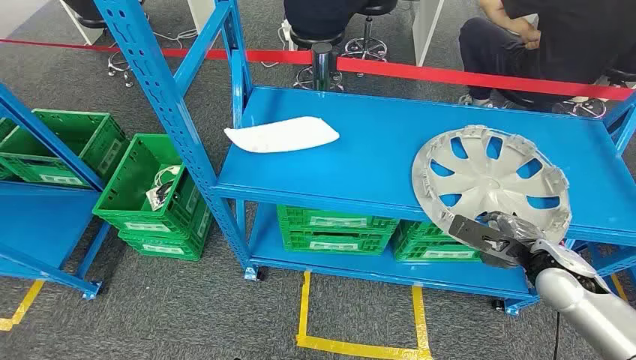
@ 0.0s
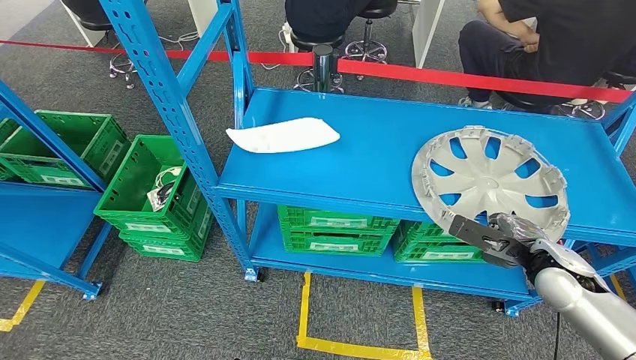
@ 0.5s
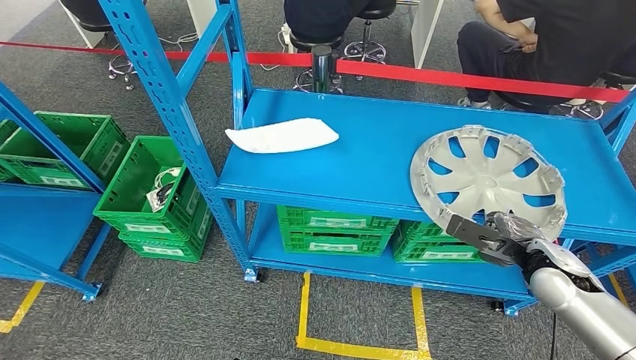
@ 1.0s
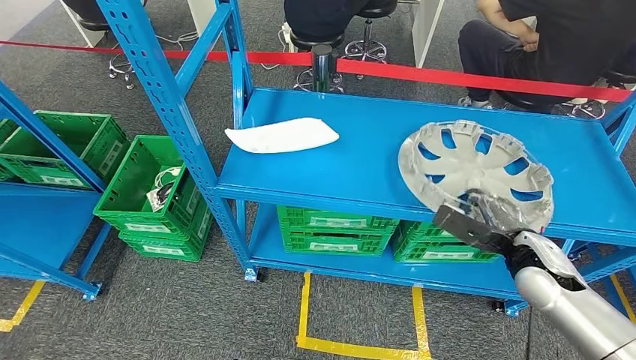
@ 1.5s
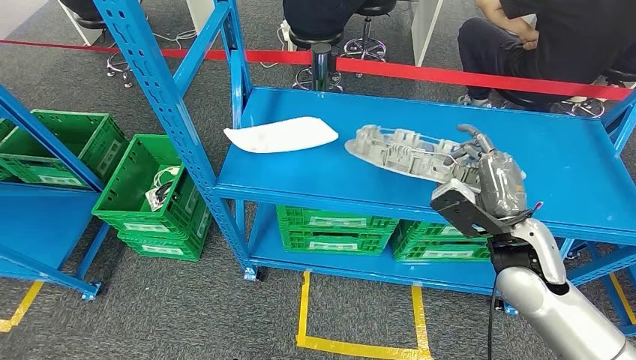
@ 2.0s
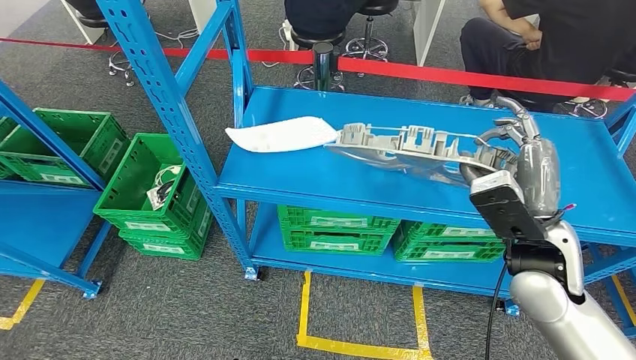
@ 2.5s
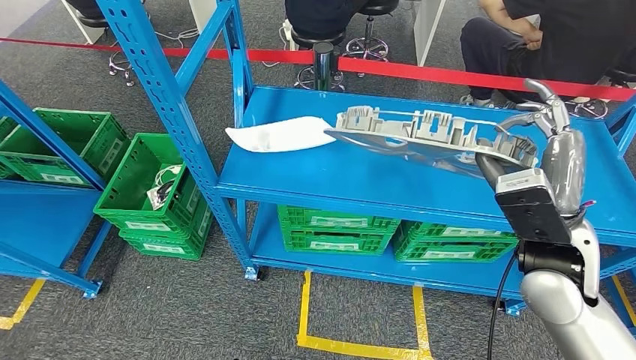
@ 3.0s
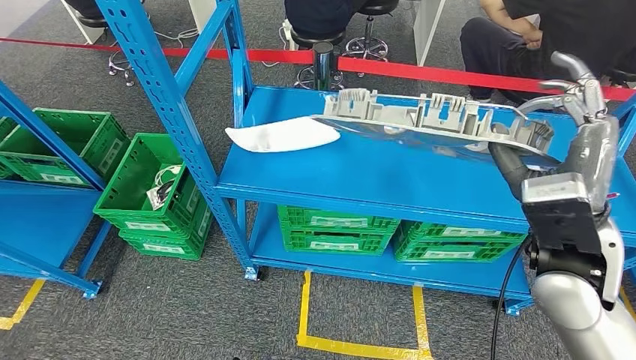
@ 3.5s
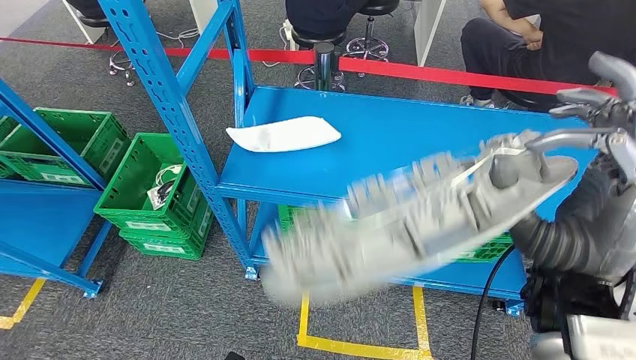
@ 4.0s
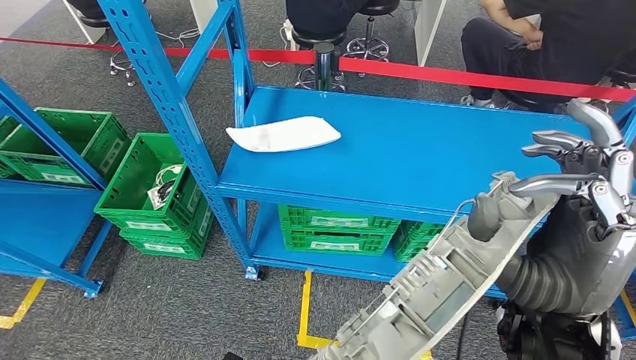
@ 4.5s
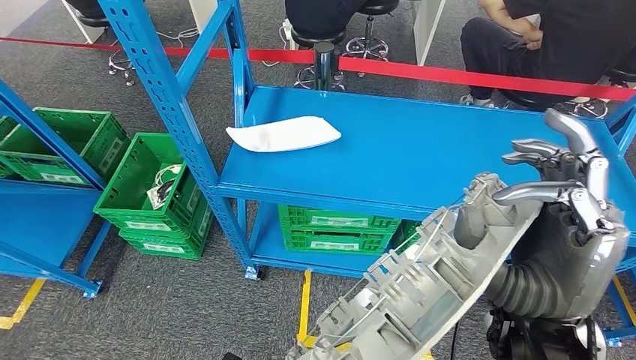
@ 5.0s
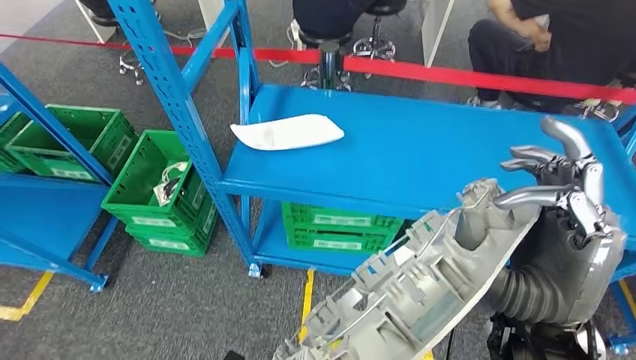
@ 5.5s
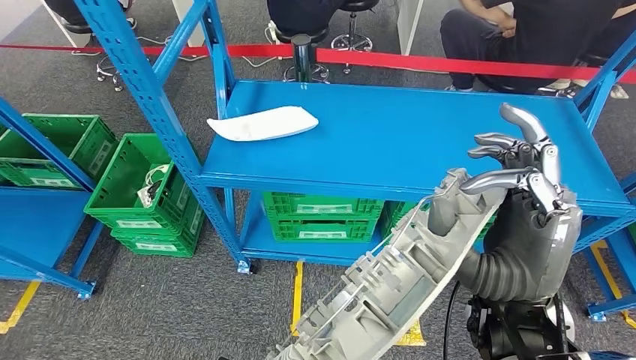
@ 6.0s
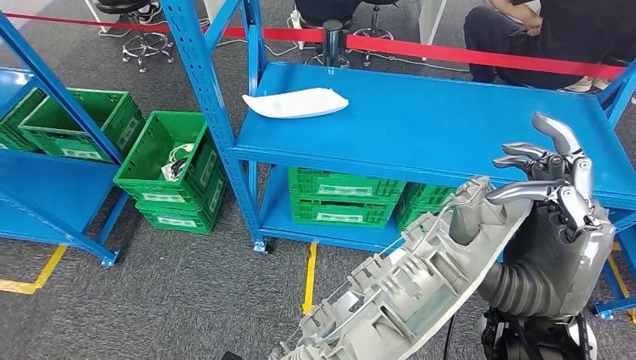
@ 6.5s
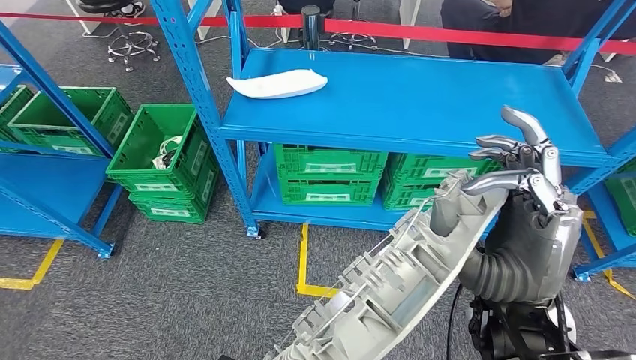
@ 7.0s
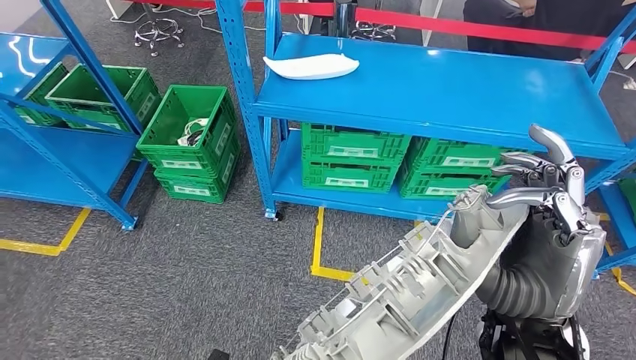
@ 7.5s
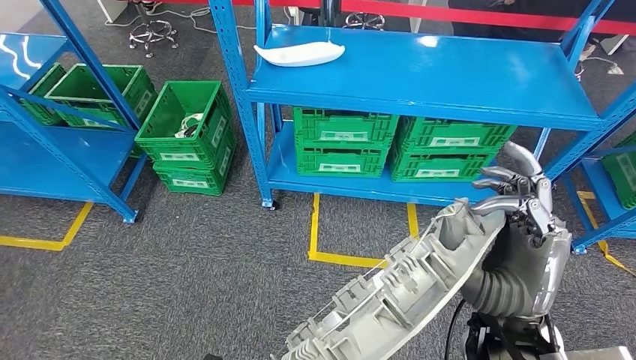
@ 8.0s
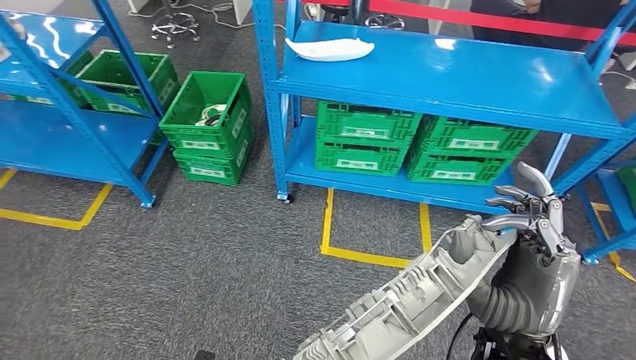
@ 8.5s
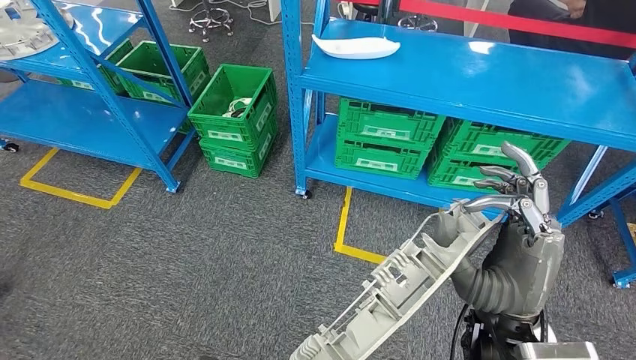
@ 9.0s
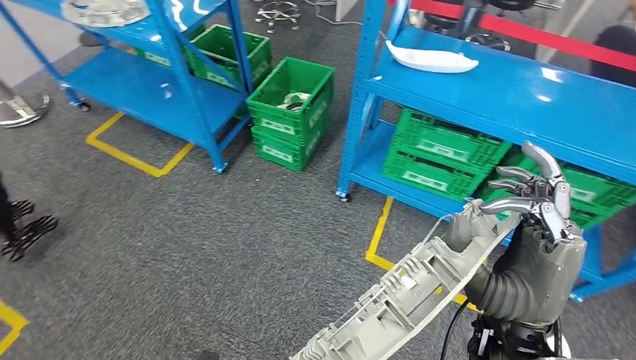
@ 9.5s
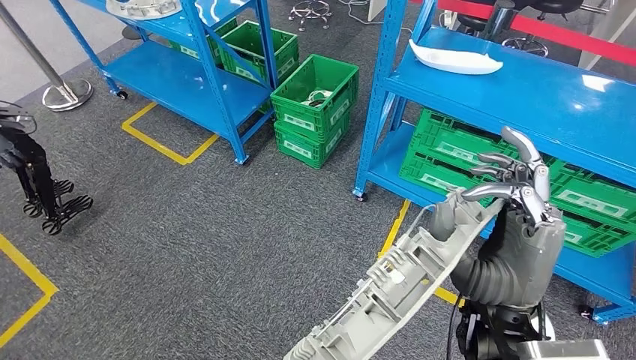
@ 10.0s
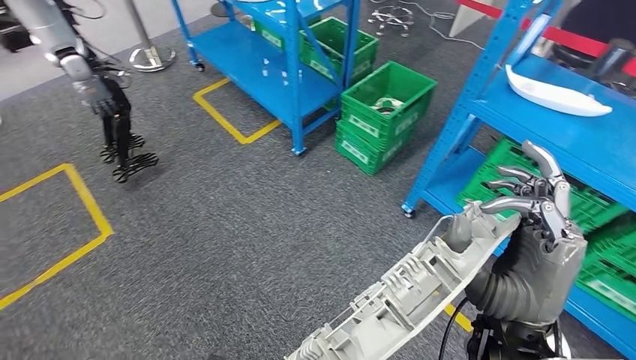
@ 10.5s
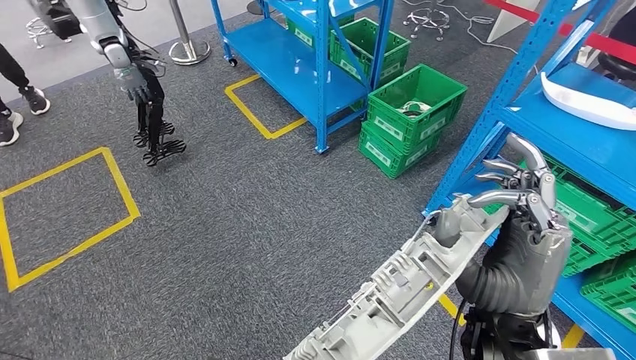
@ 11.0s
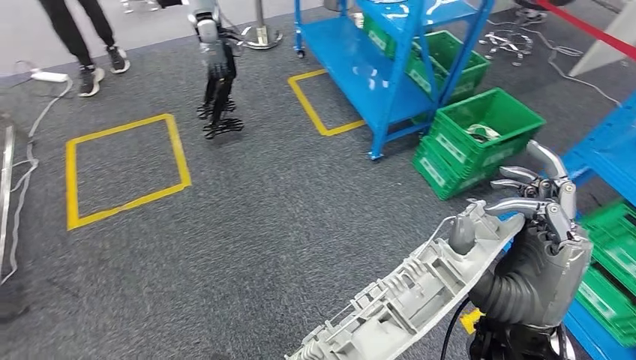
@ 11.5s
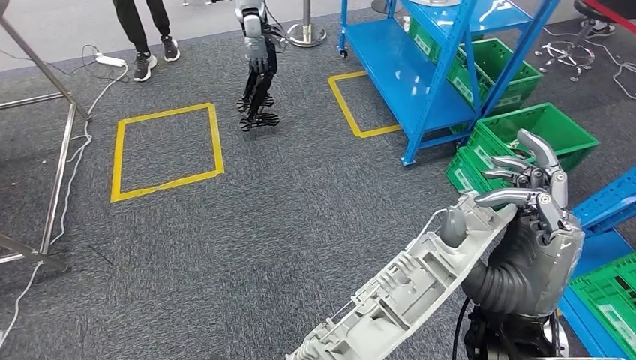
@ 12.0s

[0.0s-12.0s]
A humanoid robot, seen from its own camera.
Step, 0.0s to 5.0s: Pick up the small component from the shelf.

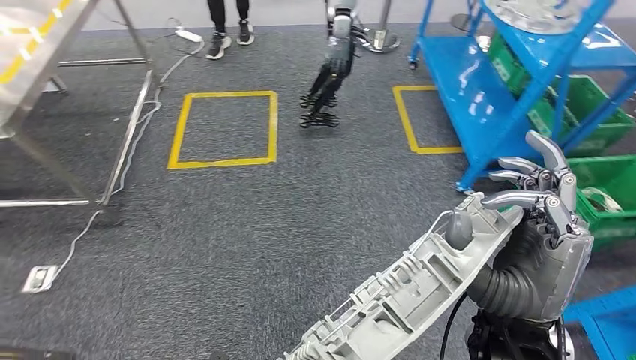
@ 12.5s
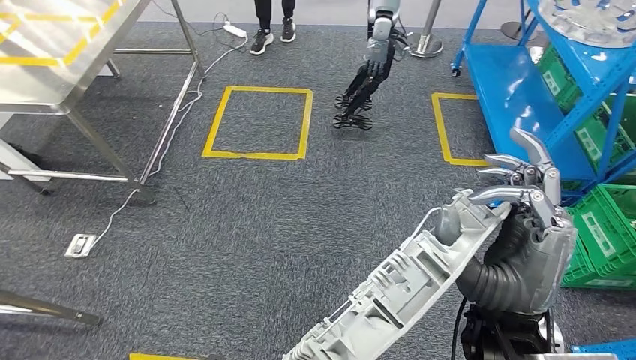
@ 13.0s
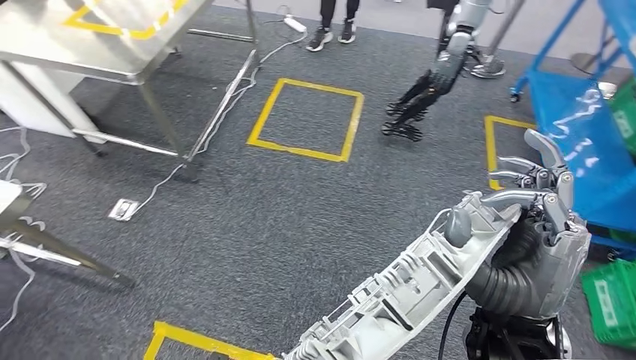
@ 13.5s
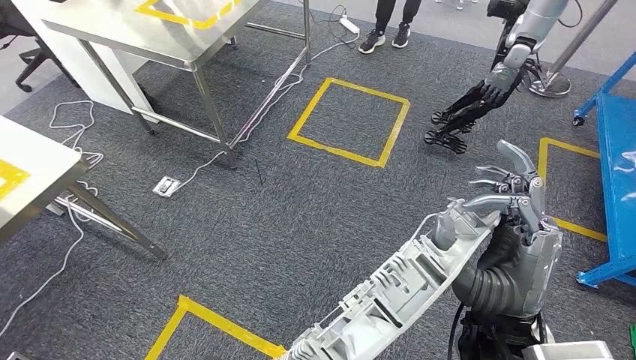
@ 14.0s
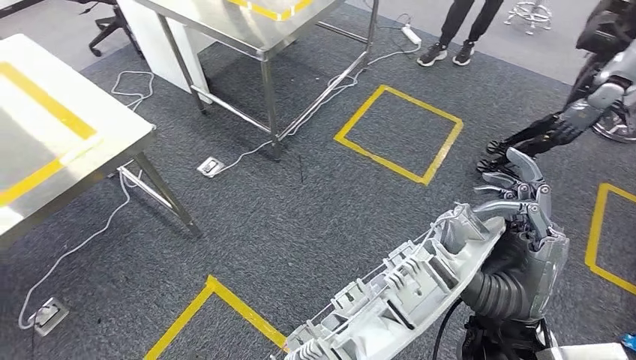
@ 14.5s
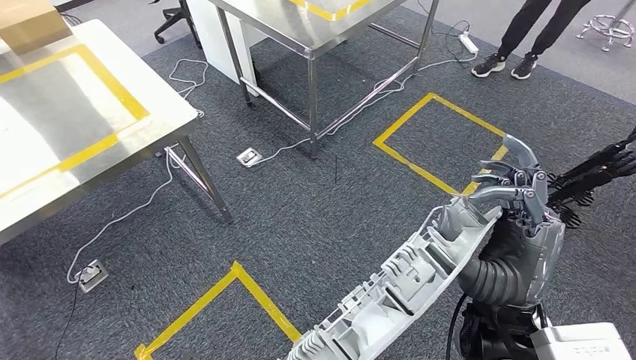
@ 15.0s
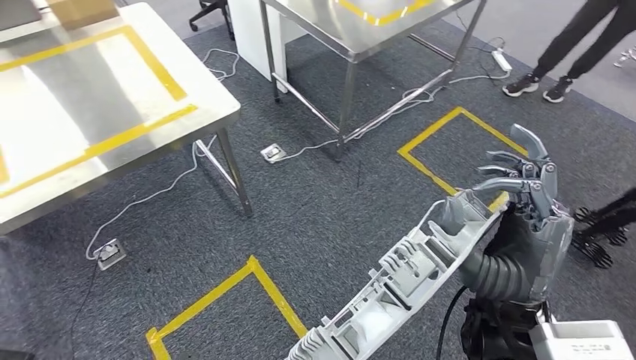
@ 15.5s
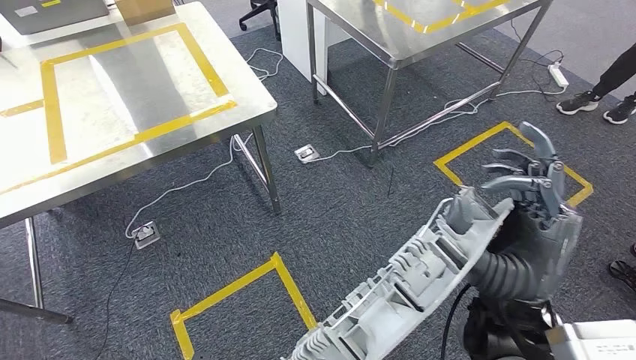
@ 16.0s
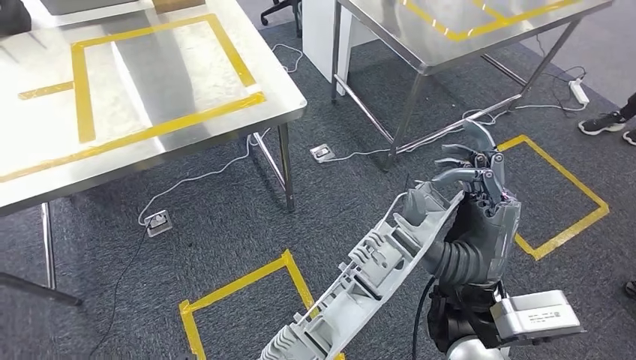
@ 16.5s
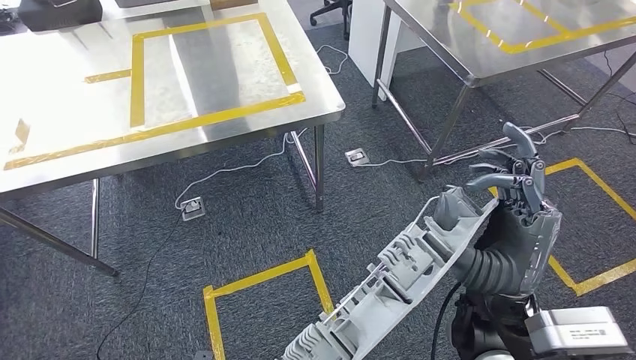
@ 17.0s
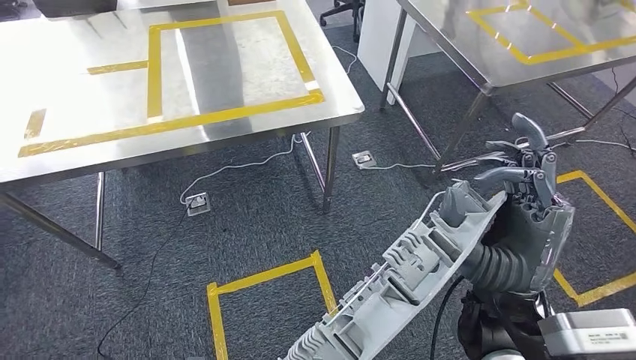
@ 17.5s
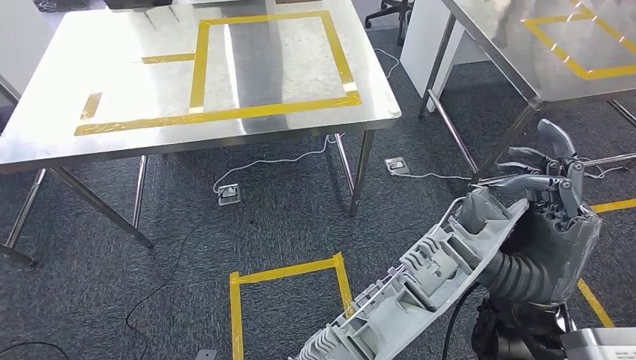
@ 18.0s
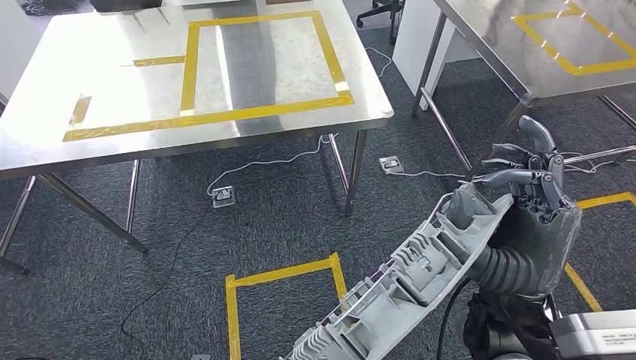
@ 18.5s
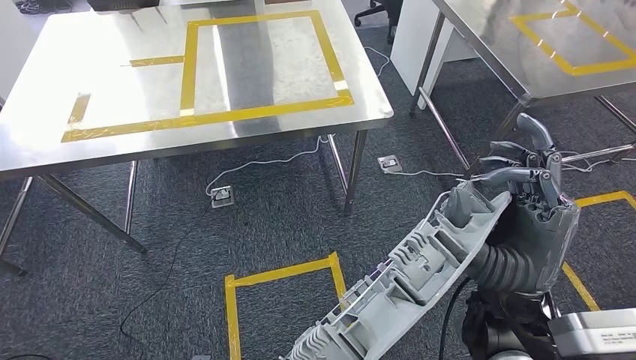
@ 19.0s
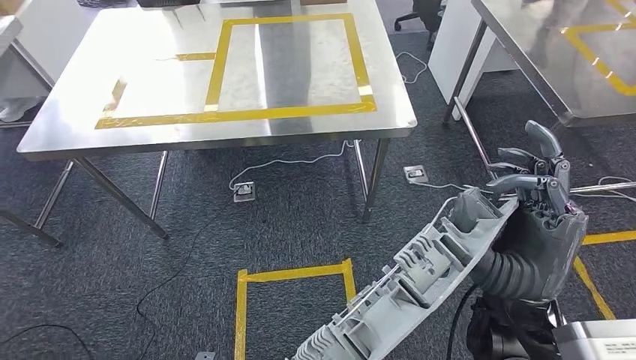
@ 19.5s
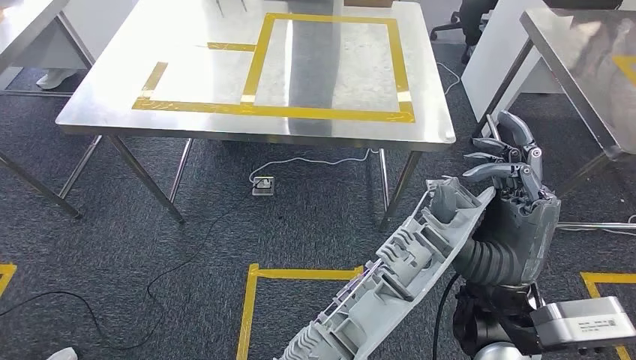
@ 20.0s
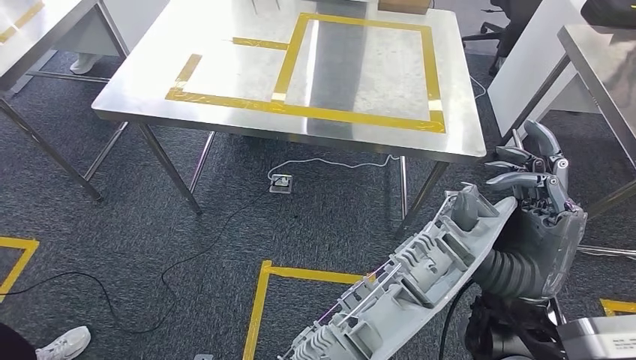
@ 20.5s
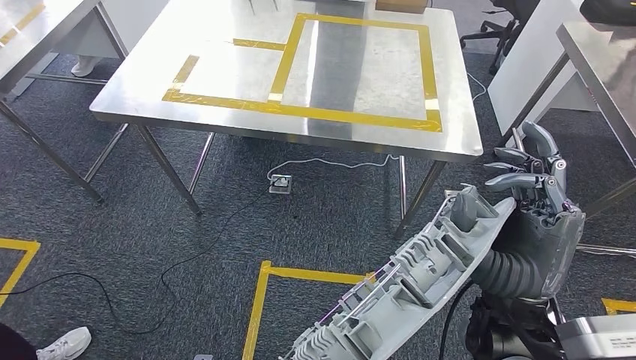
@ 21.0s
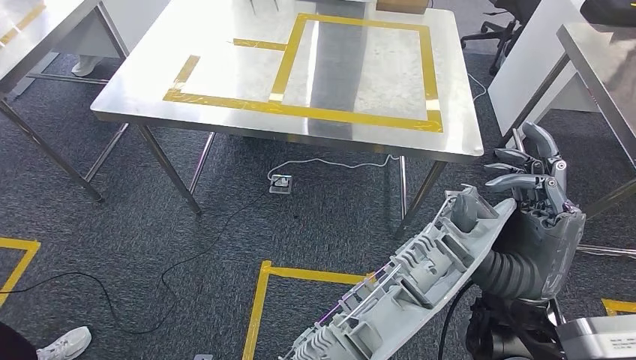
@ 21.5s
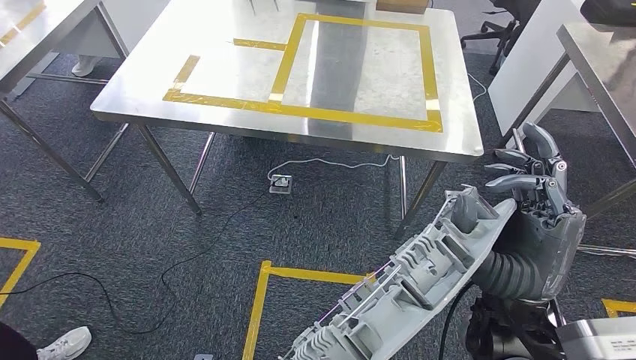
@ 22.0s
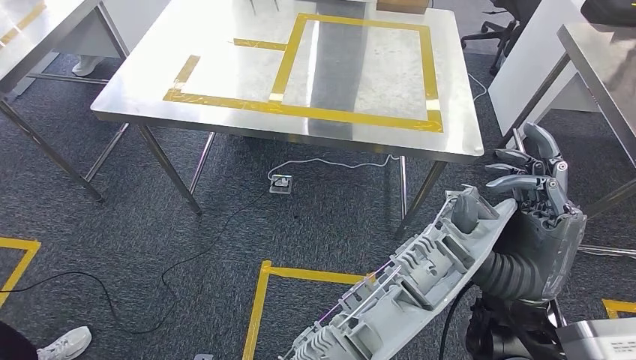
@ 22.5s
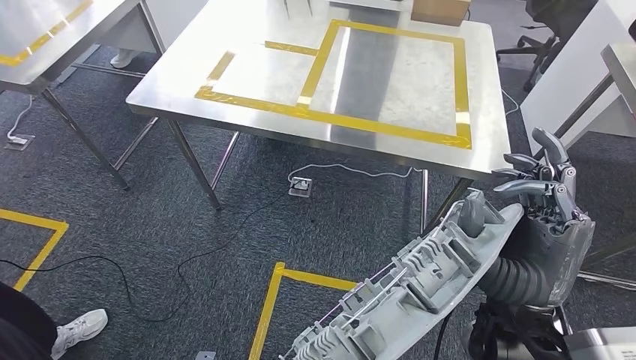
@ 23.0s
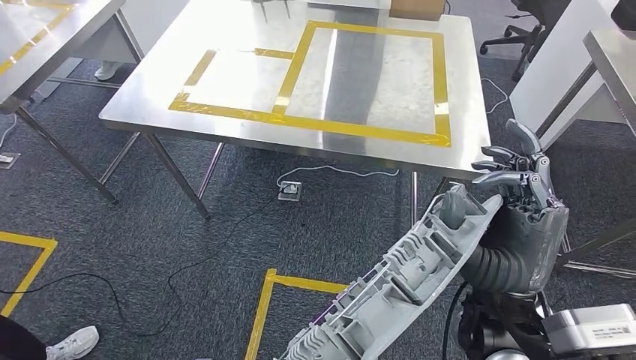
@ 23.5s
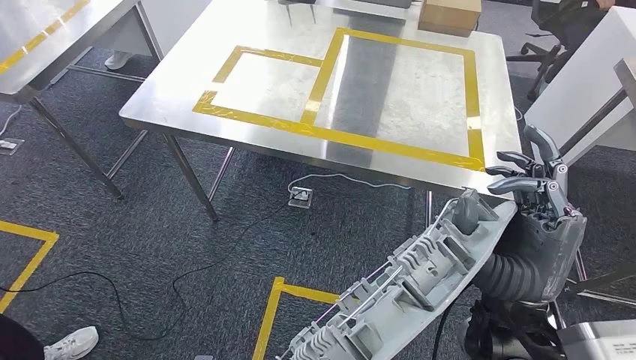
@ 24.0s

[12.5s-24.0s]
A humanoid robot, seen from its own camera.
Step, 12.5s to 20.0s: Move the small component to the workbench.
